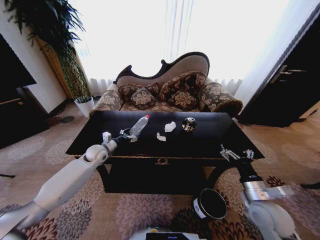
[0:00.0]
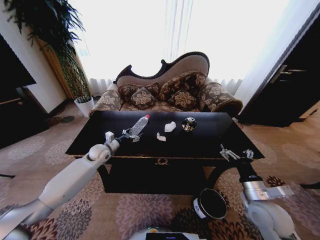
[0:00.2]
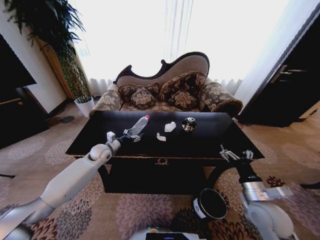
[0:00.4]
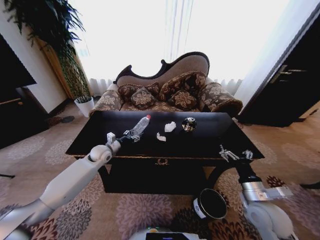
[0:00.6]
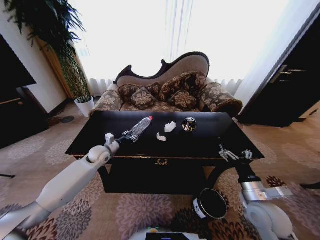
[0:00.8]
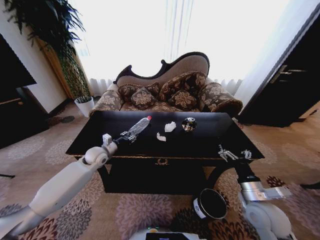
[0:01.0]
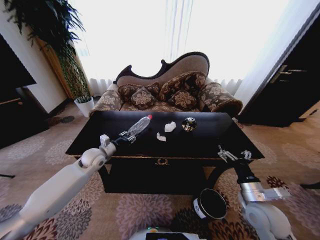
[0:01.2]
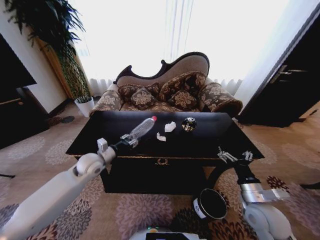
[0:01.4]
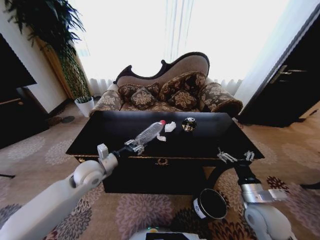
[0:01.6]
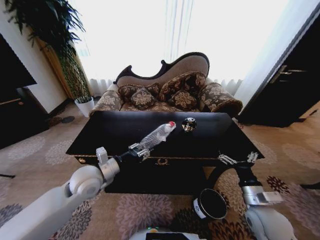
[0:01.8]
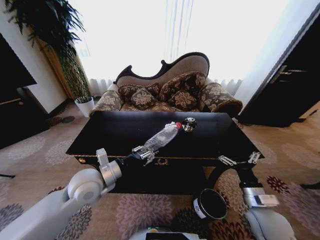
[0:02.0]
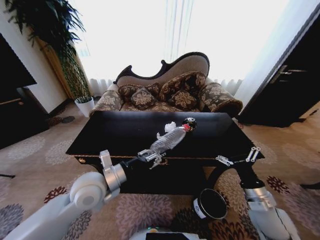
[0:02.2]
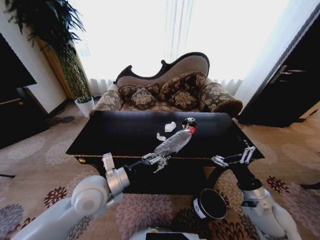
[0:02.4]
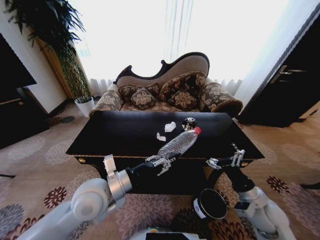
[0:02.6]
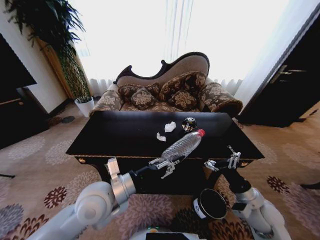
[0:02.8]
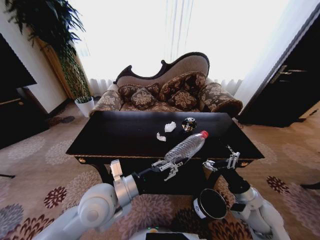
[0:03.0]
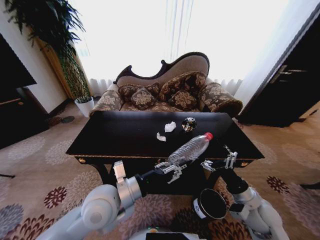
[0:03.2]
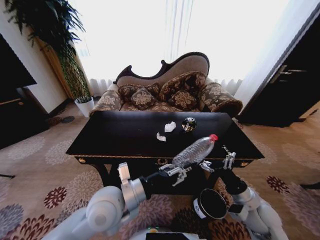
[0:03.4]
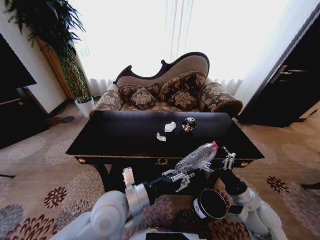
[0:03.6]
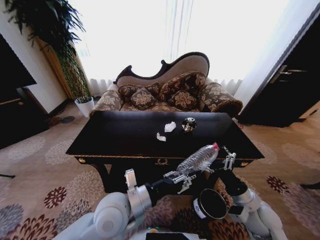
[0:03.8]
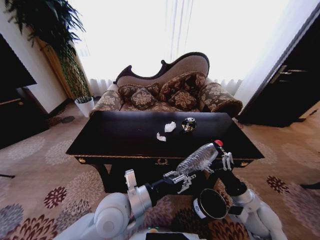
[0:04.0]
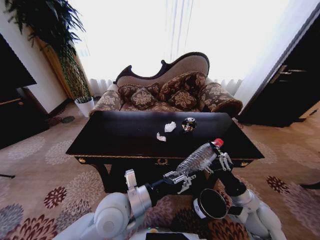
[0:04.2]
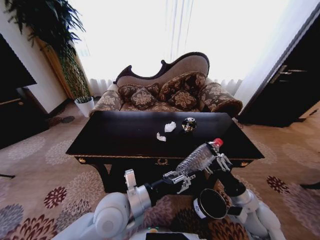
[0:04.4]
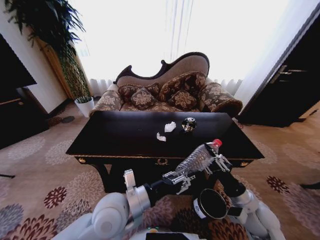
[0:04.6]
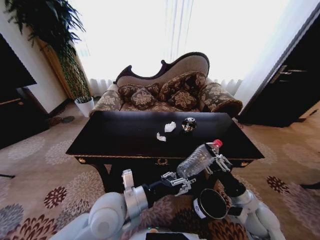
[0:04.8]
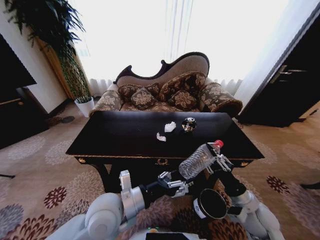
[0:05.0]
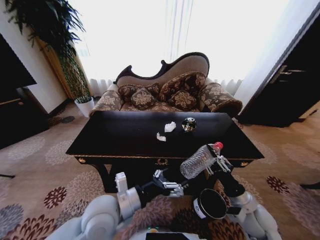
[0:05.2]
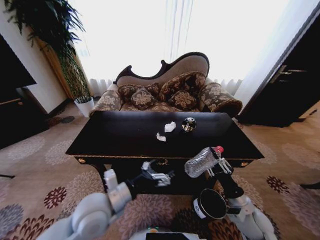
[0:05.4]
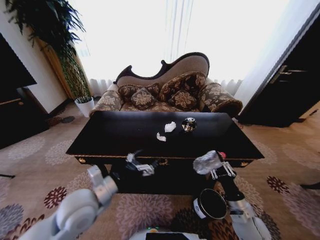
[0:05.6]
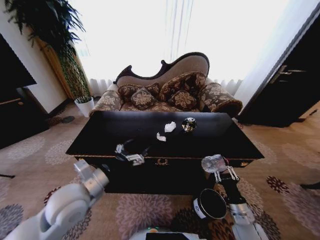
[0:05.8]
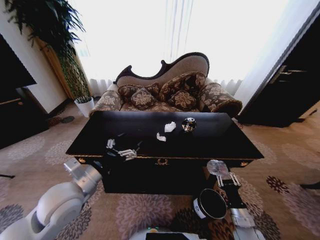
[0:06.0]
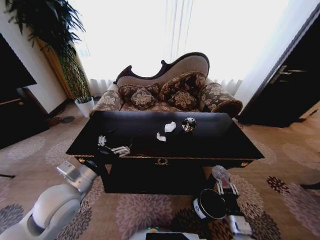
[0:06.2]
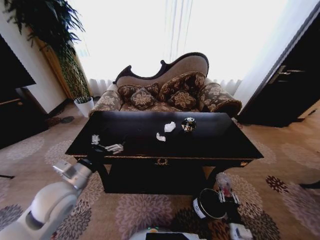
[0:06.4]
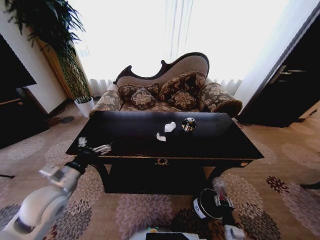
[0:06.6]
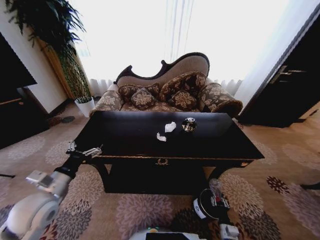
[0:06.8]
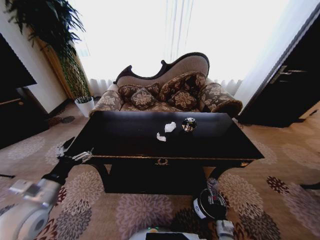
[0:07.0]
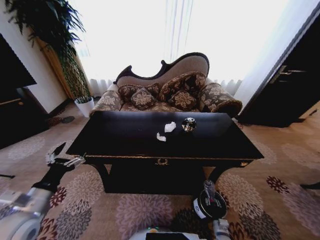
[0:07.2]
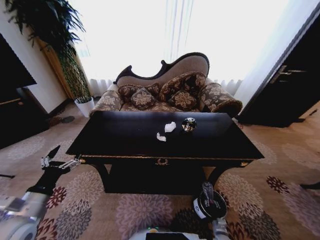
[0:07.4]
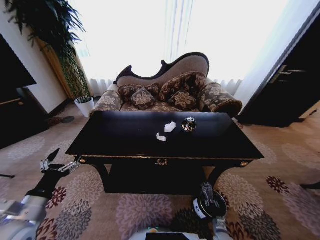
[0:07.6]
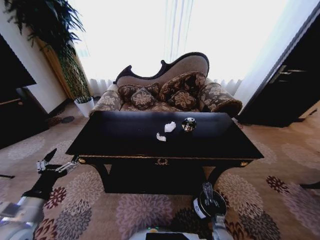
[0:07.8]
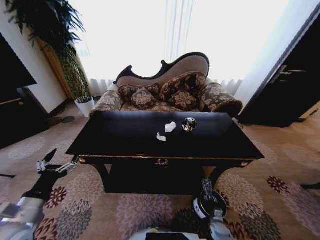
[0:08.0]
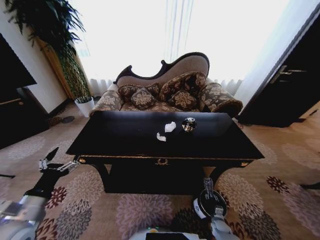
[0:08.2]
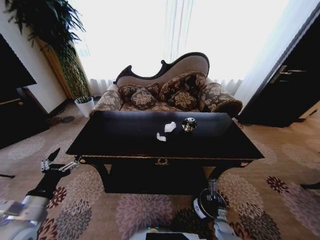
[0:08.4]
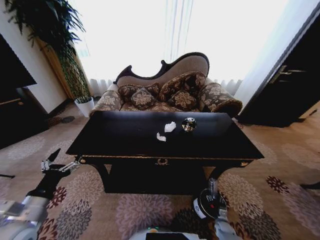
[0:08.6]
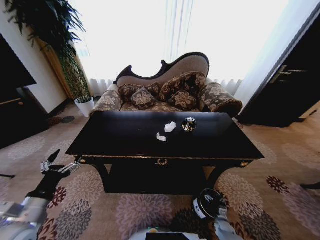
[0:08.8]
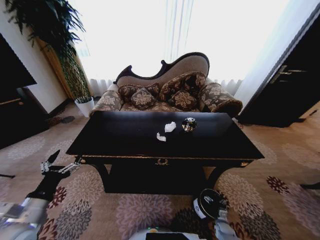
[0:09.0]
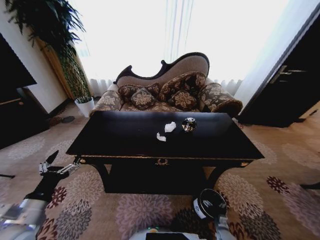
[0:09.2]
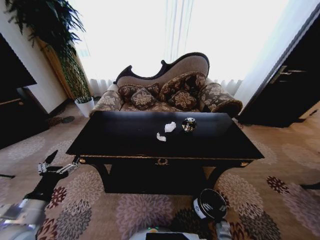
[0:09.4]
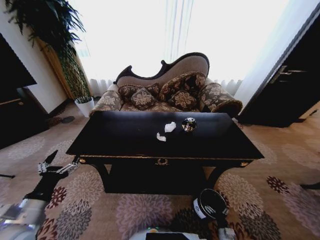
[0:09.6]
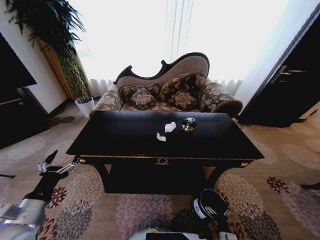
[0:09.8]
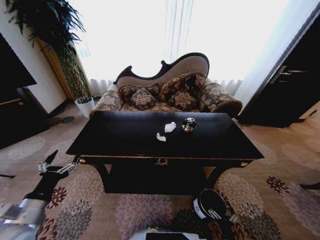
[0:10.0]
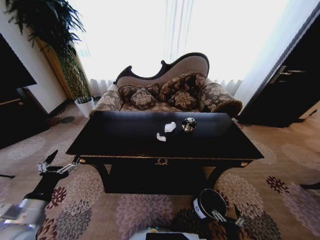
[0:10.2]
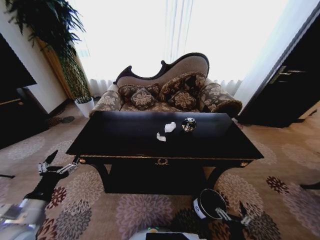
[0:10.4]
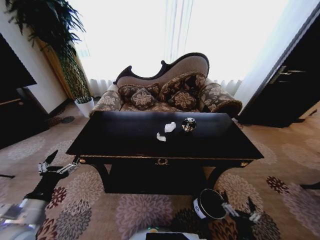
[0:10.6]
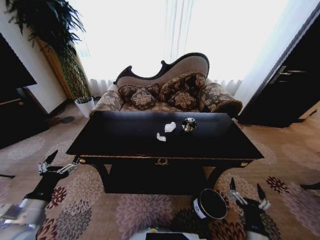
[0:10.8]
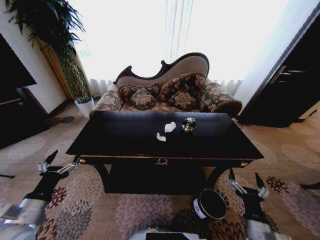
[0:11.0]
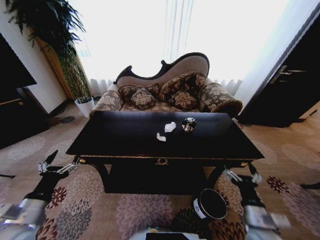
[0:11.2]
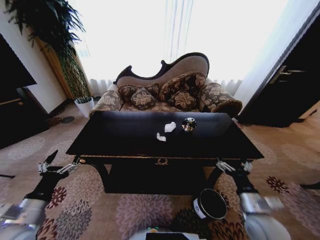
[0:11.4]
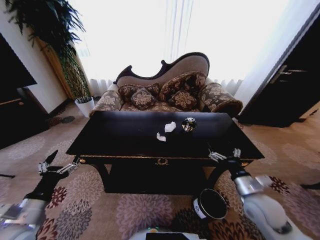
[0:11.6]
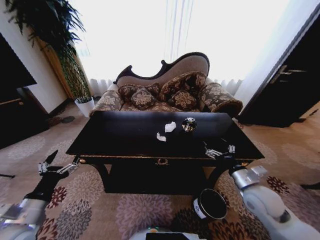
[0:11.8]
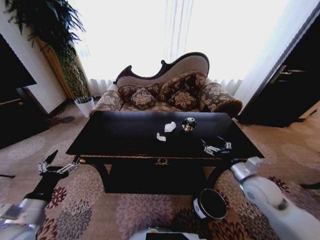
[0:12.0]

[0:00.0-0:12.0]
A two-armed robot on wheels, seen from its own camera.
Task of the whole recording: Move to the front of the table and place the trash on the table into the trash bin.
0:00.0 to 0:01.6: The left gripper goes about 15 cm backward and upward, and closes.
0:01.6 to 0:03.0: The left gripper is displaced backward, to the right and upward by about 15 cm.
0:03.0 to 0:04.4: The right gripper closes.
0:04.4 to 0:06.0: The left gripper goes about 15 cm to the left, and opens up. Meanwhile the right gripper moves downward, roughly 10 cm.
0:06.0 to 0:07.6: The right gripper goes approximately 25 cm downward, while the left gripper is displaced to the left, backward and downward by about 15 cm.
0:07.6 to 0:09.0: The right gripper shifts by about 5 cm, and opens up.
0:09.0 to 0:10.4: The right gripper travels upward, backward and to the left by some 25 cm.
0:10.4 to 0:12.0: The right gripper shifts roughly 35 cm upward and forward.

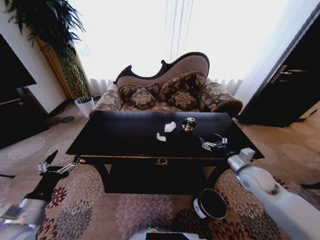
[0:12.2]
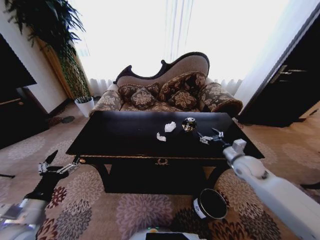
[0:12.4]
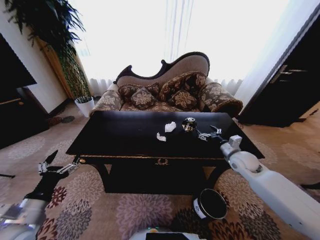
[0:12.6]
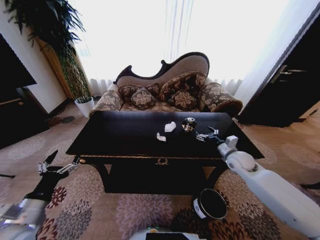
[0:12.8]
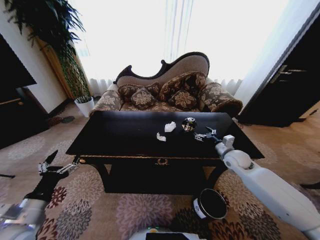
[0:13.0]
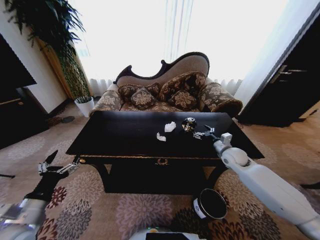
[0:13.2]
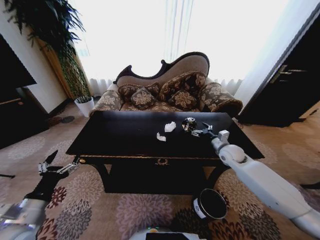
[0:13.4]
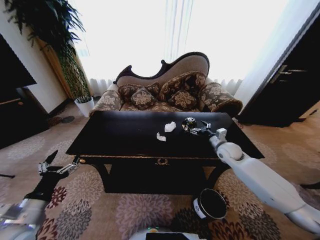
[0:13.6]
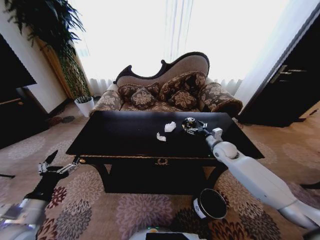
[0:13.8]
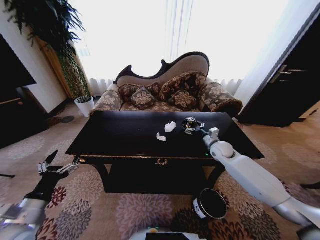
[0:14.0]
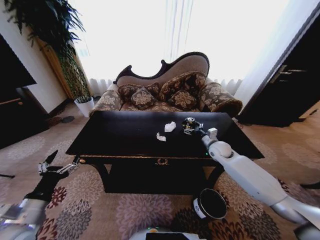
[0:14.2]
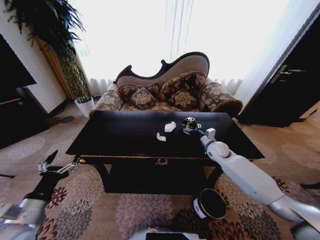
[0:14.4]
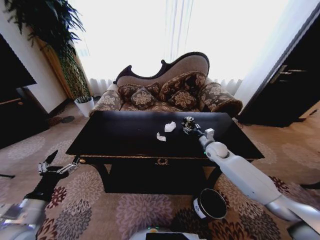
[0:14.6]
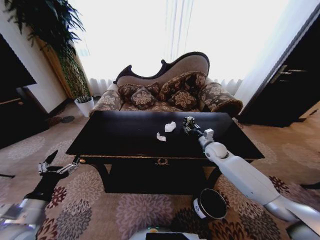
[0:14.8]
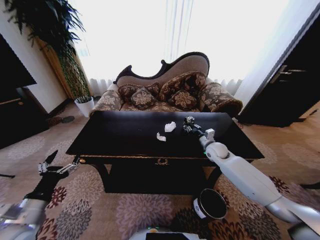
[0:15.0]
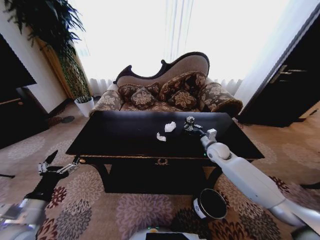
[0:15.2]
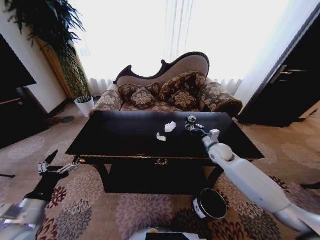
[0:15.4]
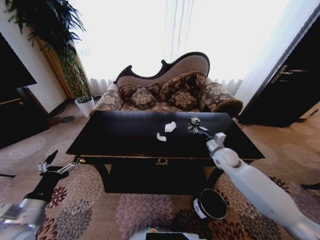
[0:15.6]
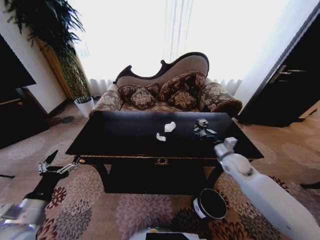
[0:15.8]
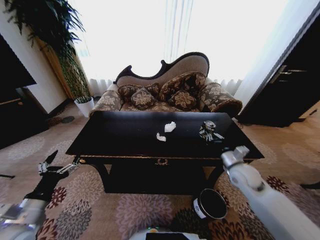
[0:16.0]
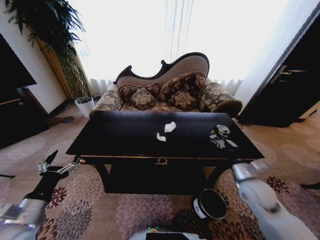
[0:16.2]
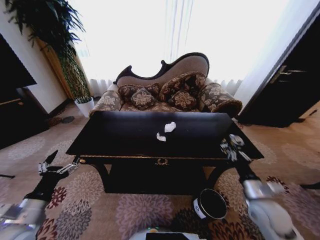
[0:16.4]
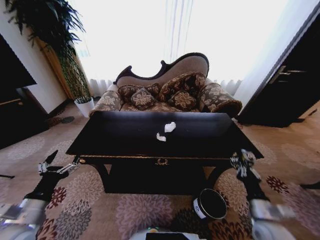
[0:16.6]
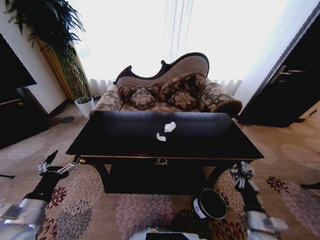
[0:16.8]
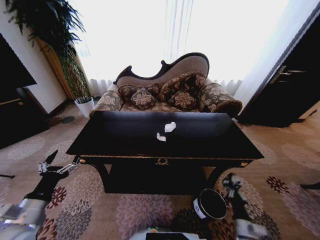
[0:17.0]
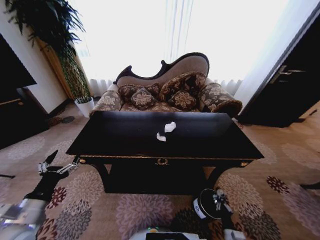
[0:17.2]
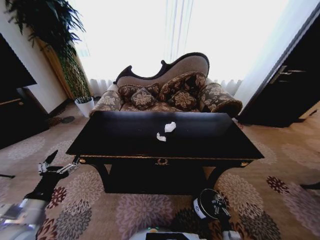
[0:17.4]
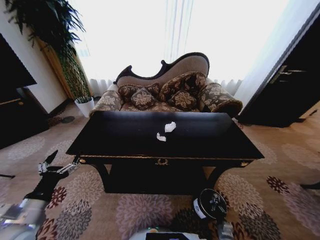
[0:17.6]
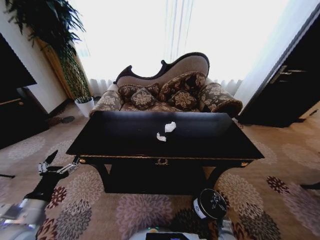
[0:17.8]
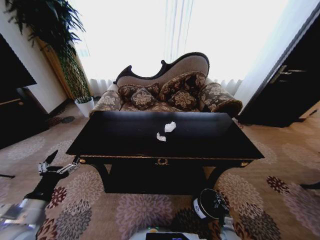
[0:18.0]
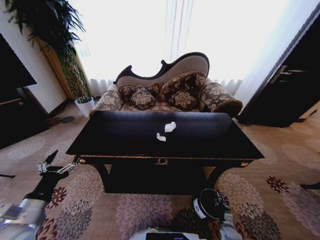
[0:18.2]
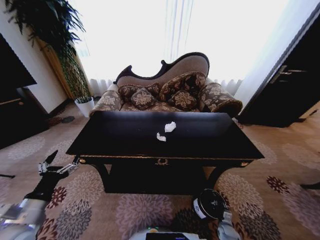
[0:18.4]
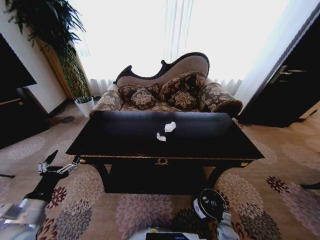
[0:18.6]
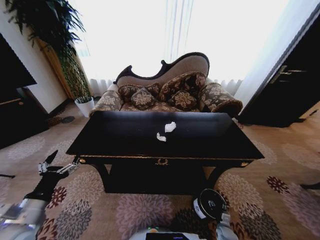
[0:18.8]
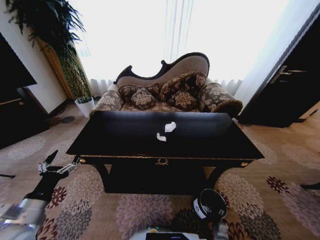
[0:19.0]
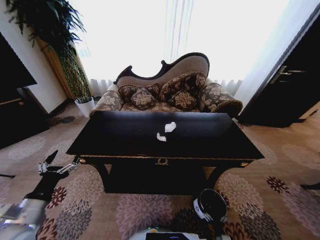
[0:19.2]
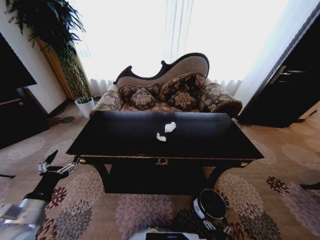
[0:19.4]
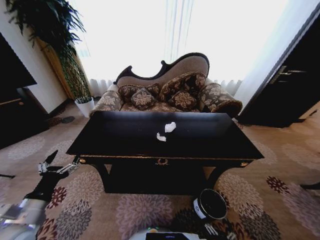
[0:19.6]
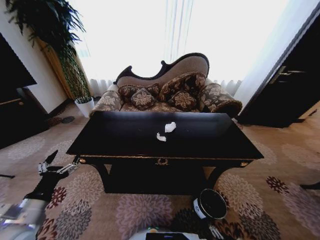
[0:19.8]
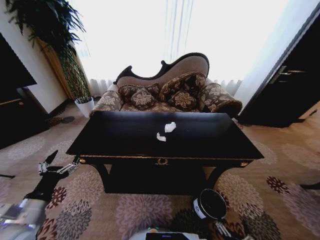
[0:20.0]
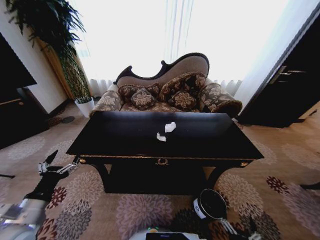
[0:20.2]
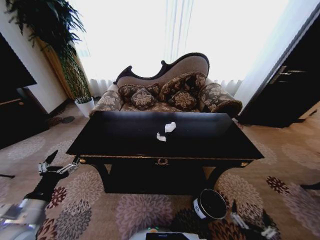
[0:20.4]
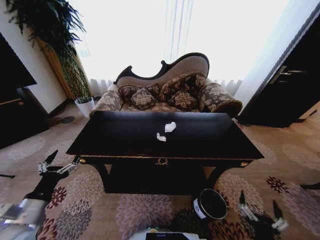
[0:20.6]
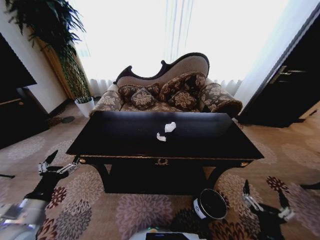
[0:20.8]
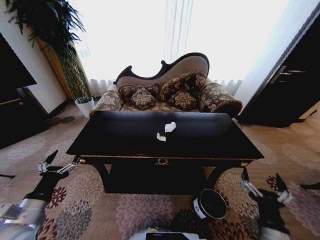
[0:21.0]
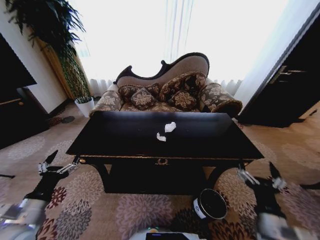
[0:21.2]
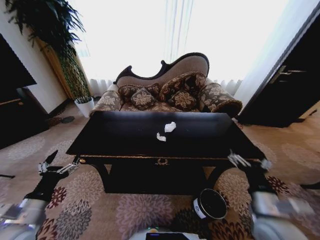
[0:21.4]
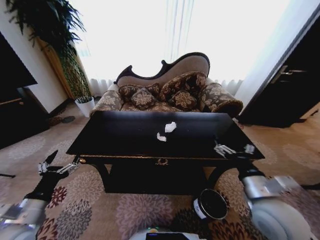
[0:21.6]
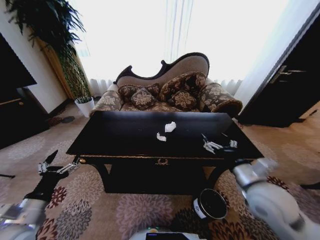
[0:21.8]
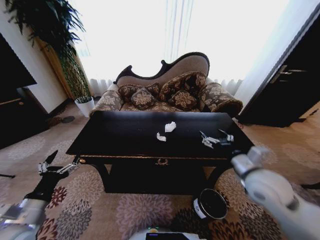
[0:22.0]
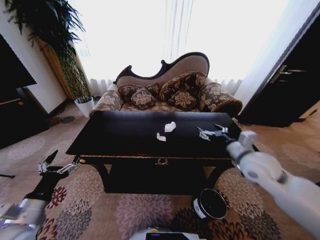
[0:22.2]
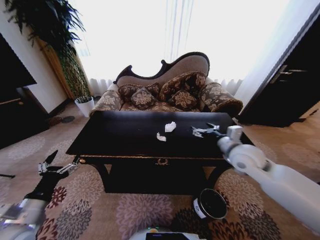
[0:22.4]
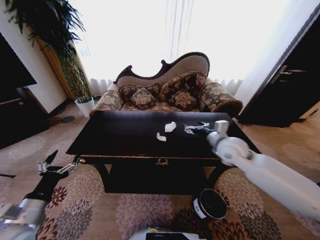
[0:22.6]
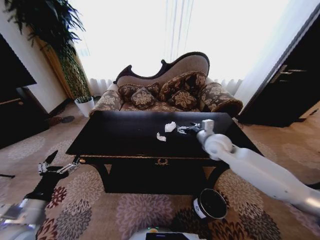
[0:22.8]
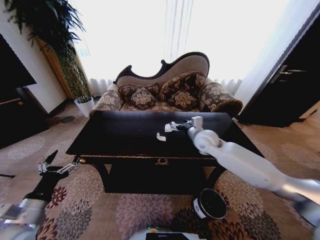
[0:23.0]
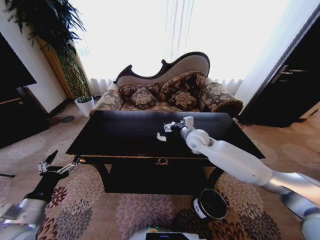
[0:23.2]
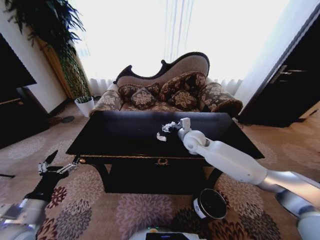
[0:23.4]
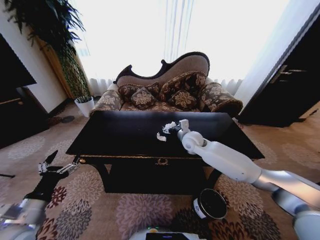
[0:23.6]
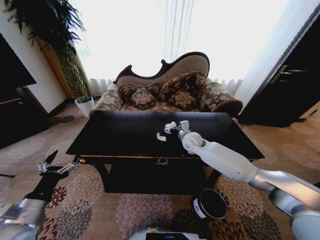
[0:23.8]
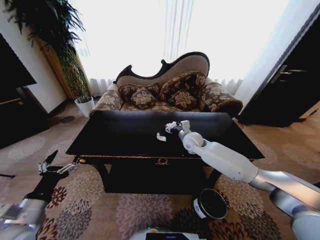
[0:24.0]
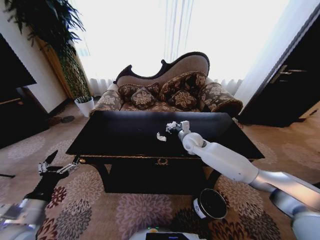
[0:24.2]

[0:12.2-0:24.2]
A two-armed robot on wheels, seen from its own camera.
Task of the whole recording: Move to the front of the table and place the trash on the table into the trash bin.
0:12.2 to 0:13.8: The right gripper moves forward, roughly 15 cm.
0:13.8 to 0:15.2: The right gripper closes its fingers.
0:15.2 to 0:16.6: The right gripper heads backward, covering roughly 30 cm.
0:16.6 to 0:18.2: The right gripper travels downward by roughly 35 cm.
0:18.2 to 0:19.8: The right gripper is displaced backward, to the left and upward by roughly 25 cm, and opens its fingers.
0:19.8 to 0:21.2: The right gripper moves upward and forward, some 30 cm.
0:21.2 to 0:22.6: The right gripper heads forward and upward, covering about 30 cm.
0:22.6 to 0:24.2: The right gripper goes some 15 cm forward, to the left and downward, and closes up.
